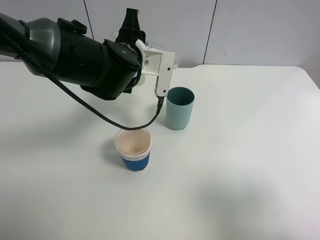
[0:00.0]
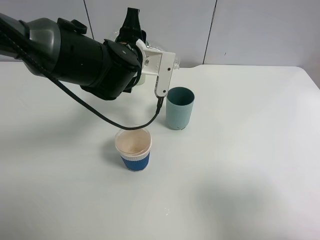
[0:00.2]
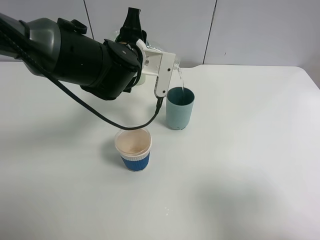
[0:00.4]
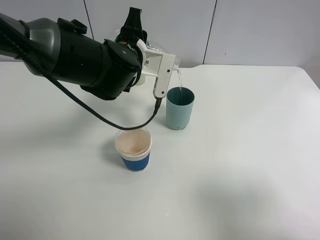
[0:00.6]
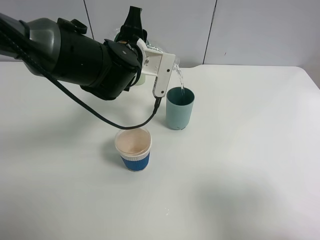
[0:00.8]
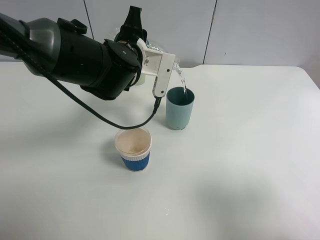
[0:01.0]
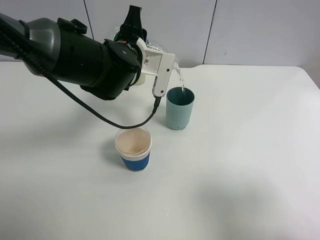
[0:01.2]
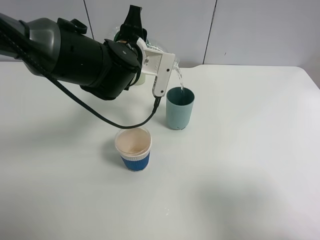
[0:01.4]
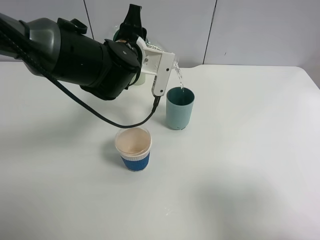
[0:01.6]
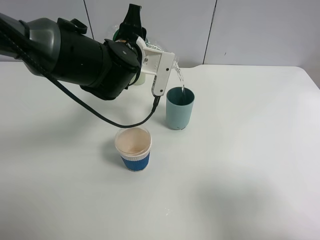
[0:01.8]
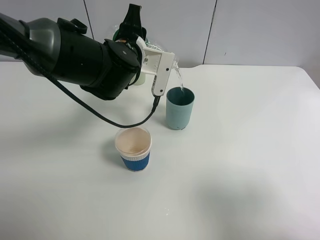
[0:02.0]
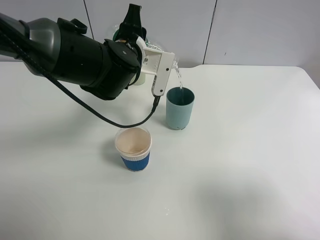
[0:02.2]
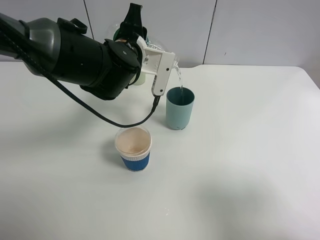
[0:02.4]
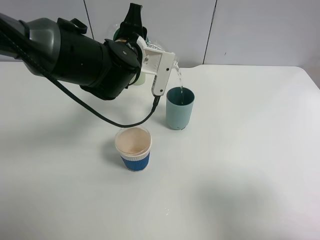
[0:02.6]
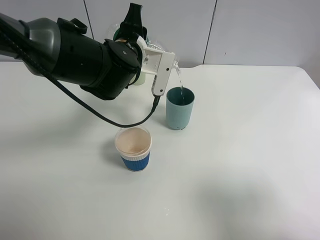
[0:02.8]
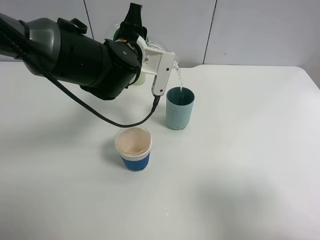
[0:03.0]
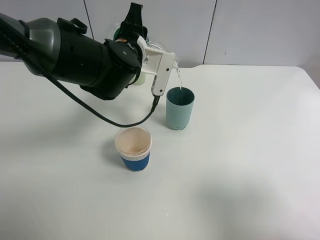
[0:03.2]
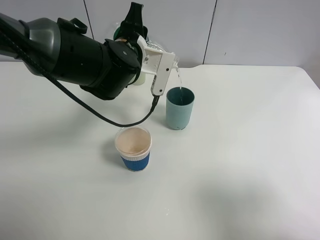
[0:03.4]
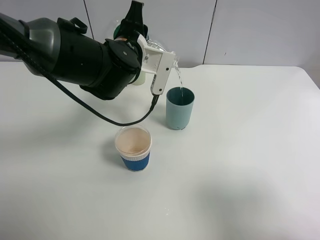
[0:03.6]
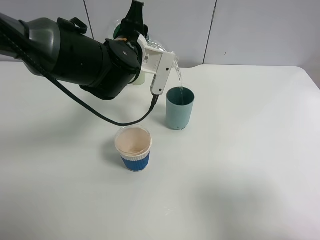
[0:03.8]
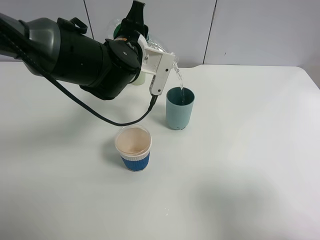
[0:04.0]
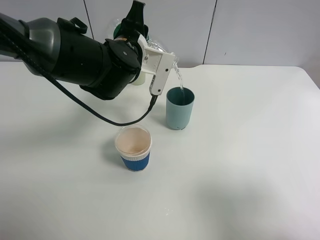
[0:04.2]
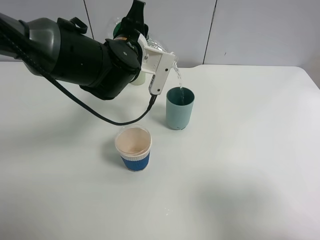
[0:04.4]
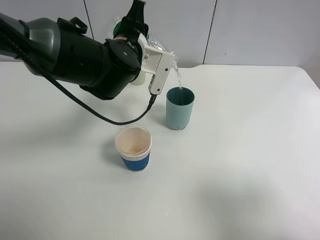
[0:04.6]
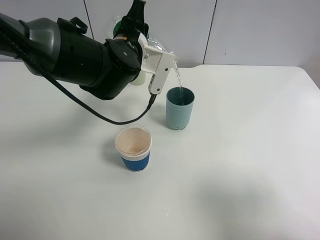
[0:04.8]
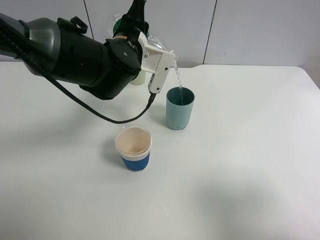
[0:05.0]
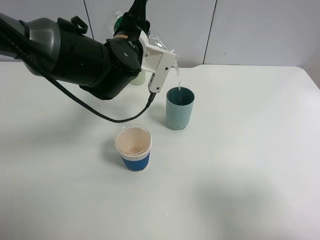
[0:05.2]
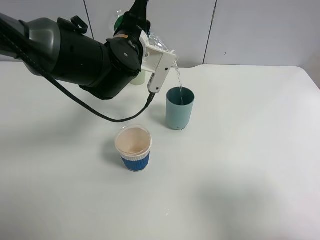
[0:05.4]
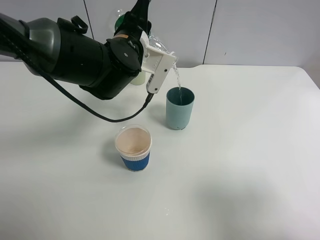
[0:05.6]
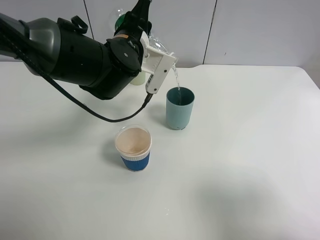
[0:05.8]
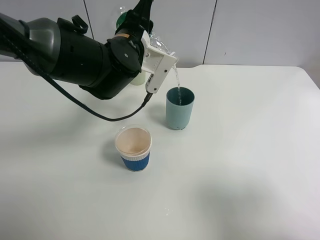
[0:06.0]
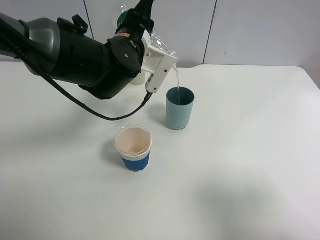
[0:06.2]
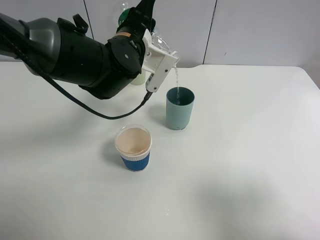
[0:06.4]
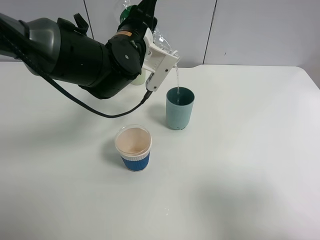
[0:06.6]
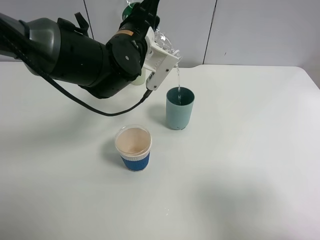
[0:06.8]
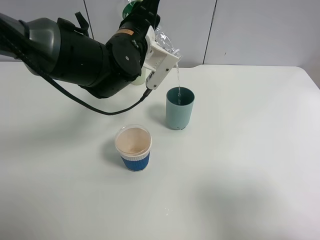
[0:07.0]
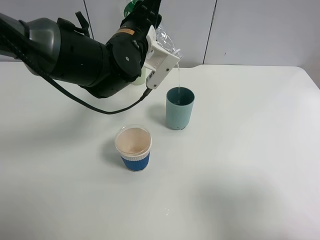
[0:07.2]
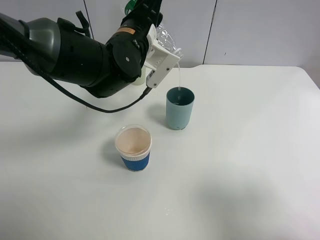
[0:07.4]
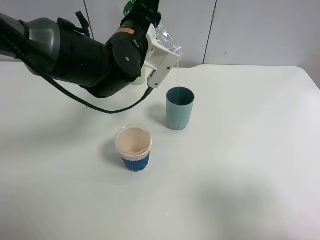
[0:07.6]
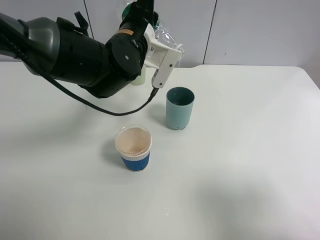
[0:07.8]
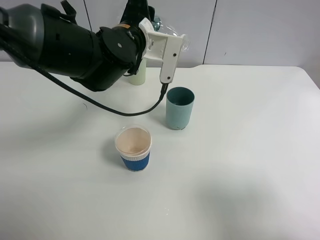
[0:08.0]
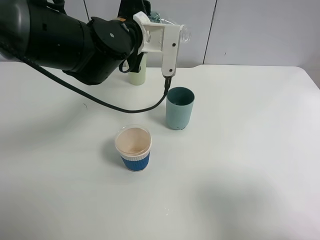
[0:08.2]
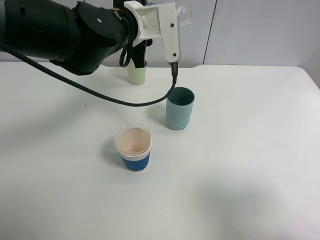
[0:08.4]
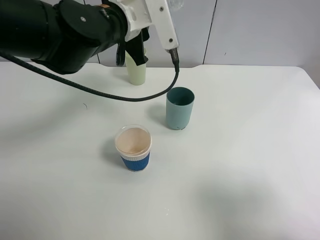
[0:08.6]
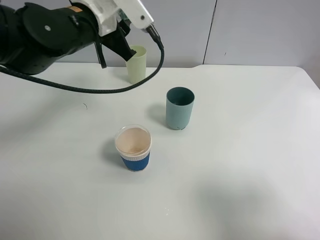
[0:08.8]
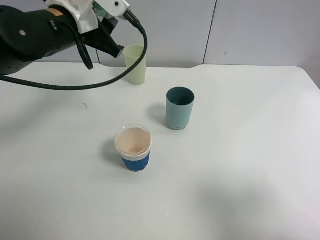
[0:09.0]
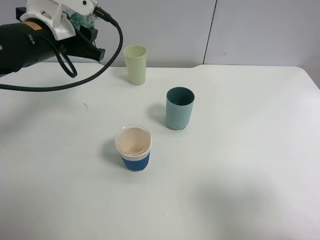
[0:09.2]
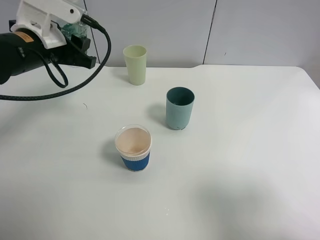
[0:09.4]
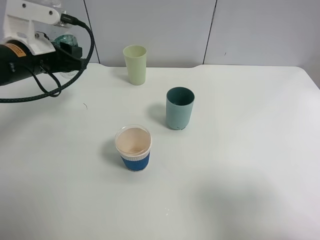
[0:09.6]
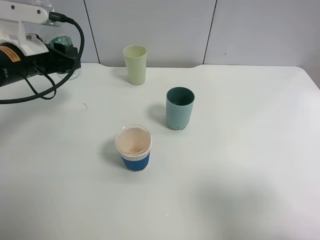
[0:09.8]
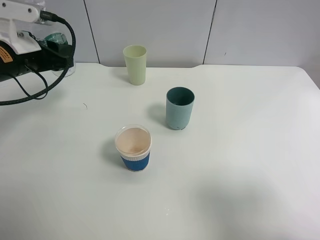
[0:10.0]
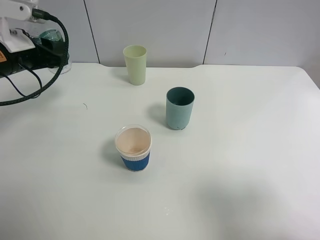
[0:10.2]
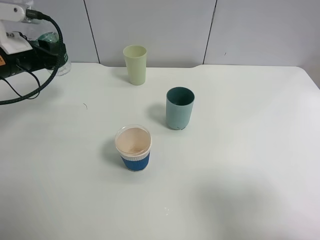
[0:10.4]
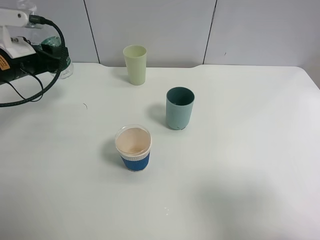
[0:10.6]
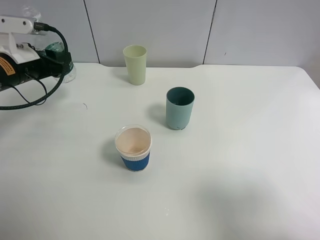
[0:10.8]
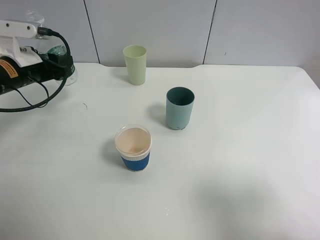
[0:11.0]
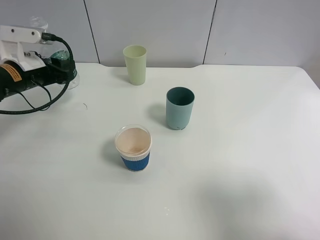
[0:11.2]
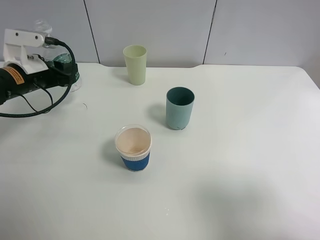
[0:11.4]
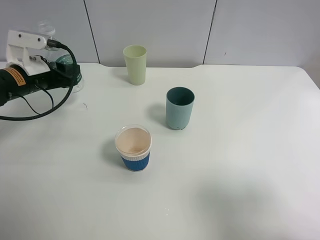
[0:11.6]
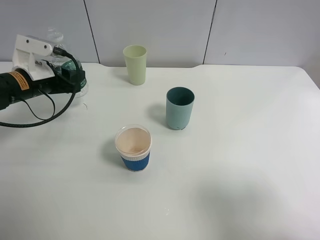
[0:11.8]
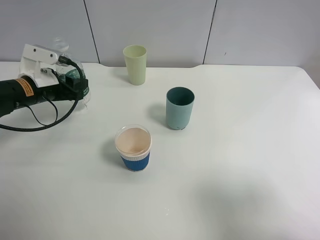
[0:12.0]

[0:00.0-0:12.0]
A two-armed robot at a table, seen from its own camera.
Task of the whole recording: use a clamp to hold the bottle of the drink, pour the beverage into a random cup, then clamp the cup containing the drink and pour the drink into another random cup.
Step, 0:00.0 to 0:08.0: Pour the water into the blue plastic cup with left gripper.
0:00.0 to 0:01.6: There are only small adjustments of the grippers.
0:01.6 to 0:03.0: Neither gripper changes place.
0:03.0 to 0:06.0: The grippers stay close to where they were, moving slightly.
0:06.0 to 0:07.6: The grippers stay close to where they were, moving slightly.
0:07.6 to 0:09.0: The left gripper is displaced to the left by some 10 cm.
0:09.0 to 0:10.4: The left gripper goes some 15 cm to the left and downward.
0:10.4 to 0:12.0: The left gripper travels downward by roughly 10 cm.

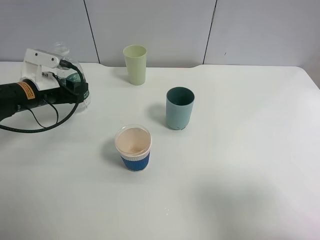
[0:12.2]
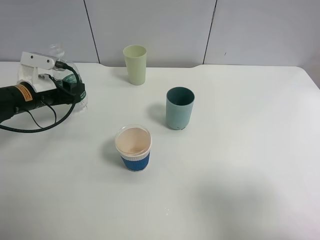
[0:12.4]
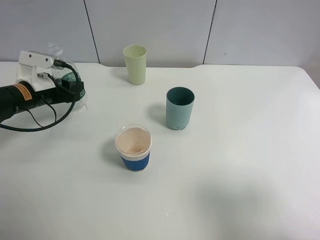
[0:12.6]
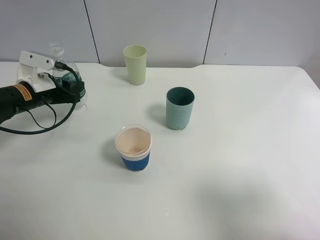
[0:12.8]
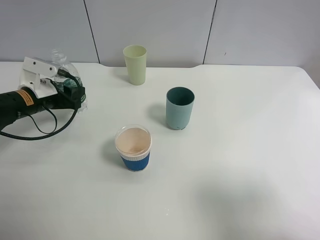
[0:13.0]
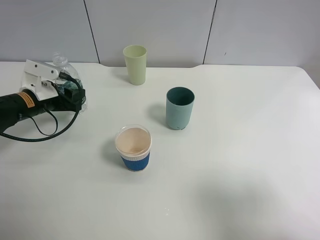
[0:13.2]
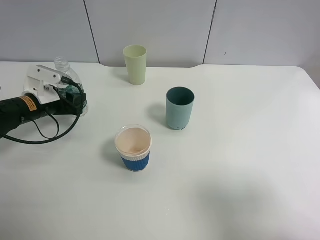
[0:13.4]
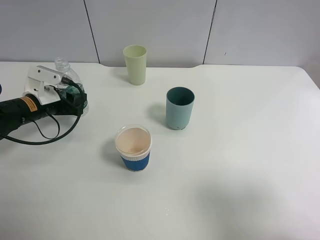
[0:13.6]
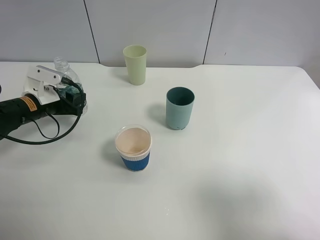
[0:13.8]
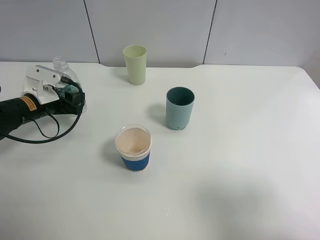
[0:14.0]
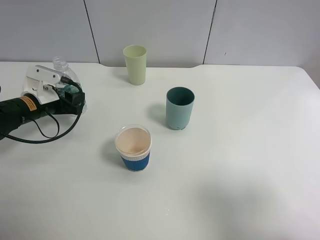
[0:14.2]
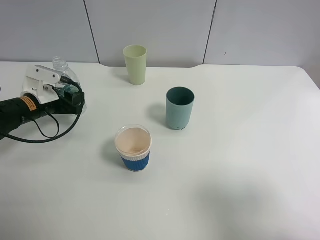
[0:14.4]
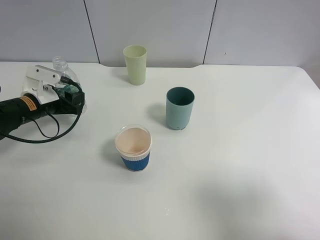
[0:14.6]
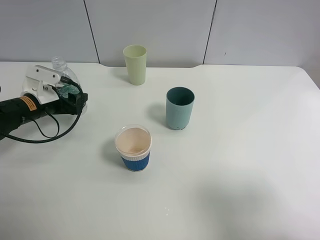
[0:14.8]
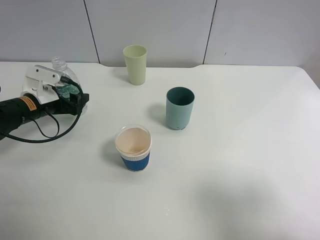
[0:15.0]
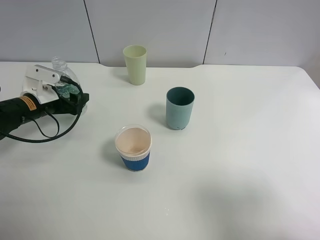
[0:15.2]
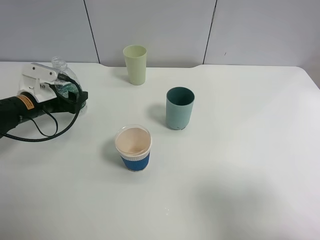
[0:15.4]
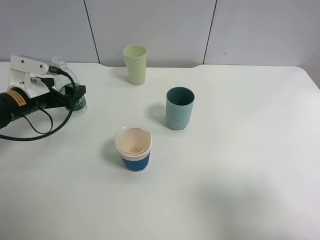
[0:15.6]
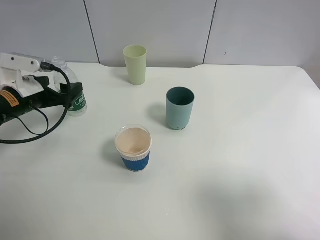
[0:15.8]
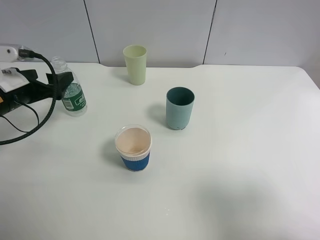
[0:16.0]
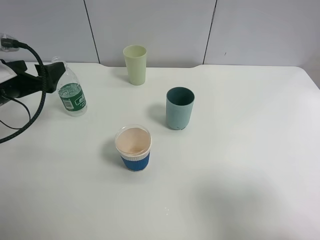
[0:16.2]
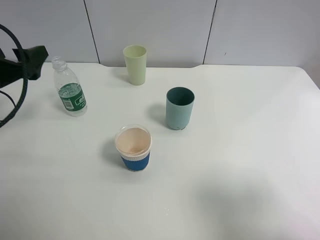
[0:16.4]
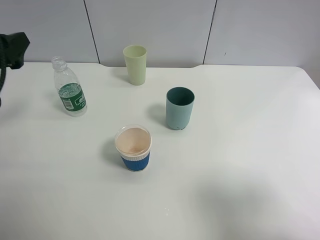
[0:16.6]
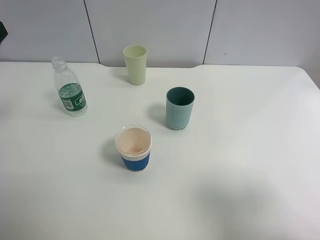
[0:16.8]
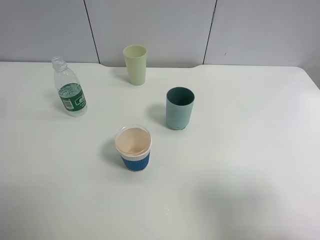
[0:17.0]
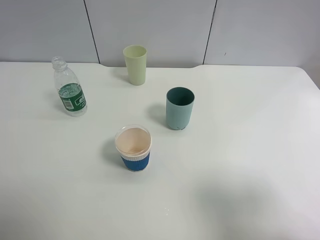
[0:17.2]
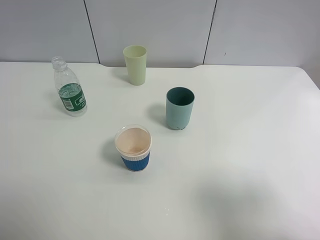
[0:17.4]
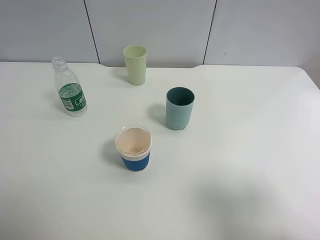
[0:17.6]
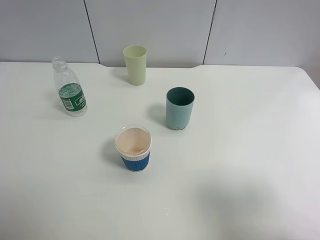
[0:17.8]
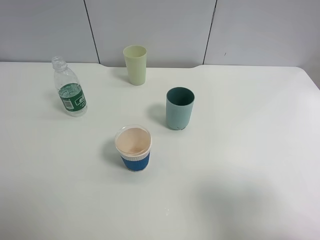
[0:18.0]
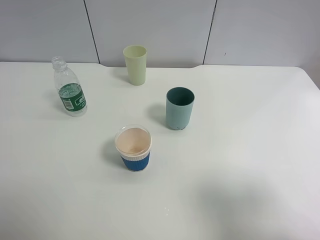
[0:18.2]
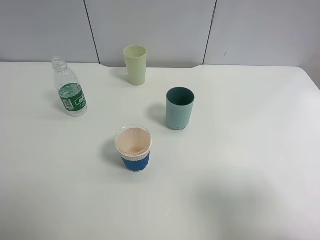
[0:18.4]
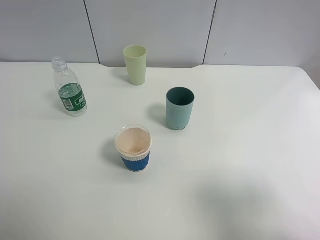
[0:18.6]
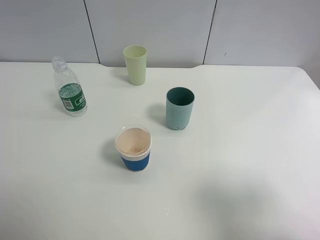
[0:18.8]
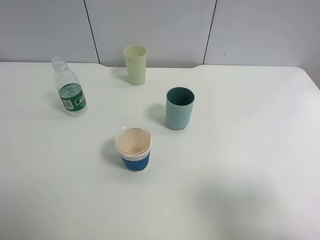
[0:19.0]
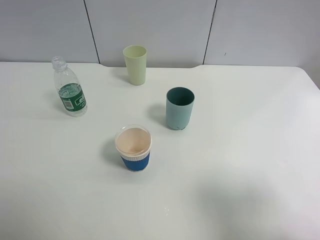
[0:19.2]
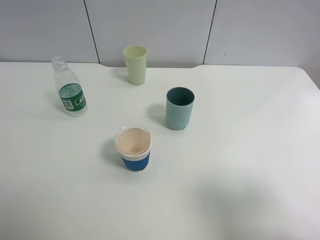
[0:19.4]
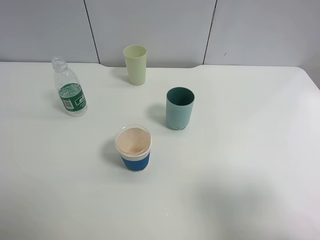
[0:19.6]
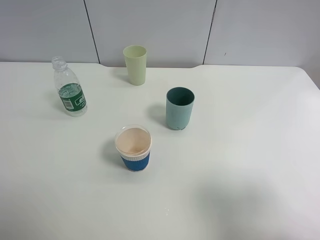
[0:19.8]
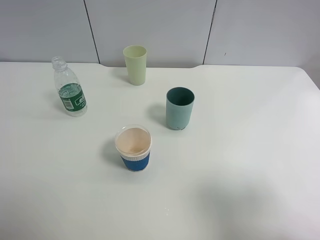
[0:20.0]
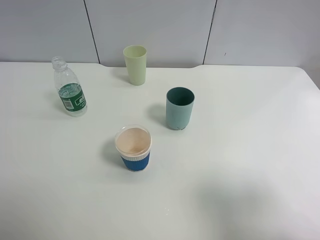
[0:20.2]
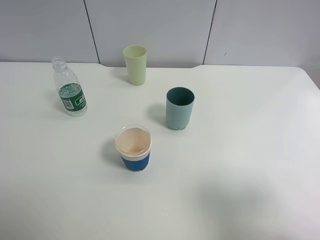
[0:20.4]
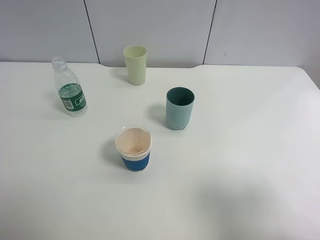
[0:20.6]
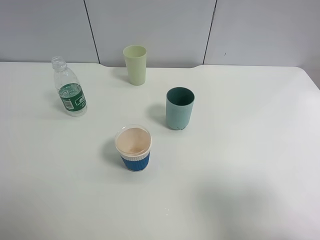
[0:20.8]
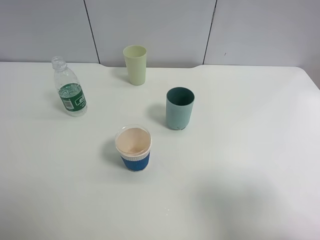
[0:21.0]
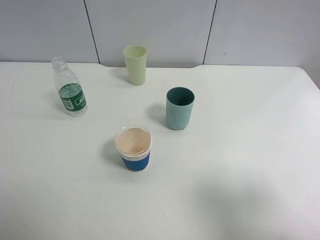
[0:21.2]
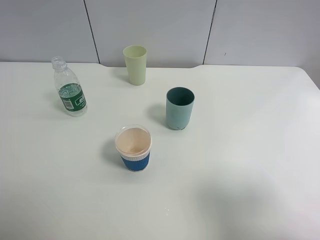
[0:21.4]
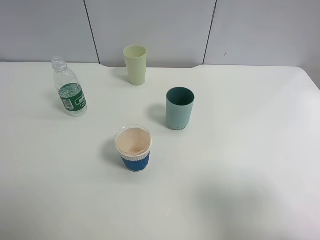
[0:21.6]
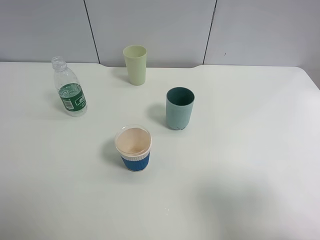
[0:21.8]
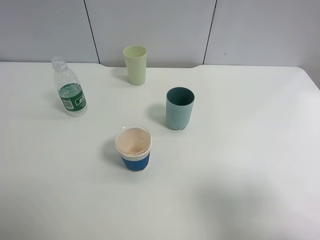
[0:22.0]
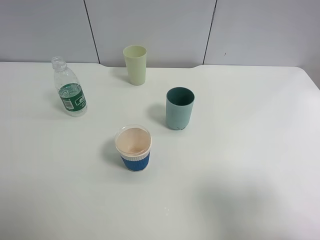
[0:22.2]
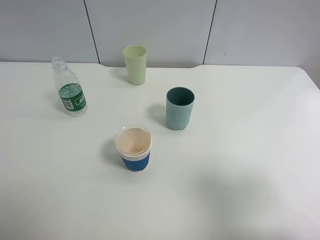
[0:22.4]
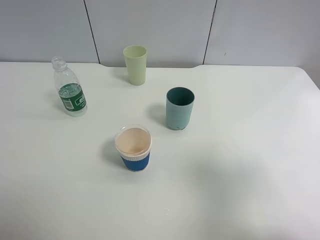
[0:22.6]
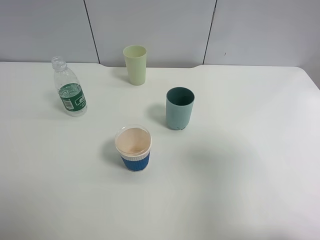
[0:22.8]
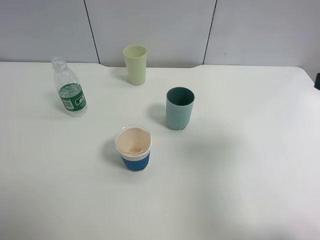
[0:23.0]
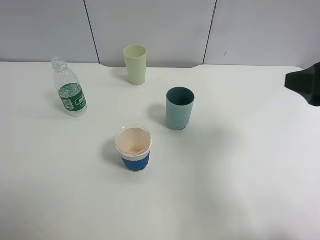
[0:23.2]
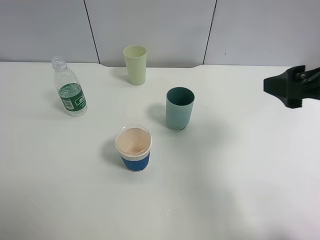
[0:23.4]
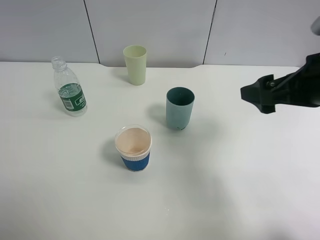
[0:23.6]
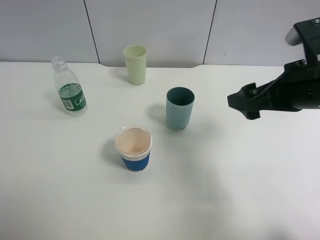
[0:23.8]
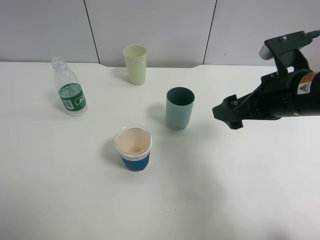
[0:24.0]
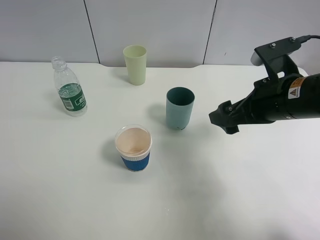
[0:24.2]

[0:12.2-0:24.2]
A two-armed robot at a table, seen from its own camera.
Task of the whole recording: use a clamp to hold the bottle of the drink, pour the beverage into a random cup, then clamp the cup containing the drink and pour the drink into another random cup.
Step, 0:12.2 to 0:15.6: Place the water bottle on the table with left gripper.
0:12.2 to 0:13.8: The grippers stay close to where they were, moving slightly.
0:13.8 to 0:15.2: The left gripper opens its fingers.
0:15.2 to 0:16.6: The left gripper heads upward and backward, covering roughly 20 cm, and opens.
0:16.6 to 0:18.2: The left gripper is displaced backward by roughly 25 cm.
0:19.8 to 0:21.2: The two grippers keep their place.
0:21.2 to 0:22.6: The right gripper travels forward by about 5 cm.
0:22.6 to 0:24.2: The right gripper is displaced forward, to the left and downward by about 20 cm.
